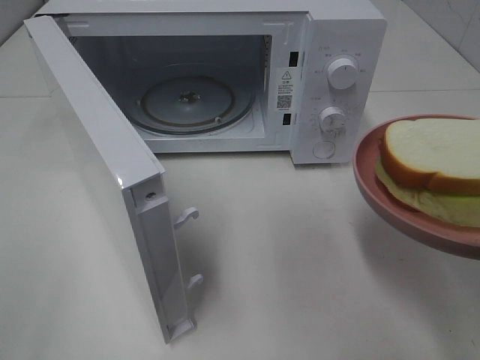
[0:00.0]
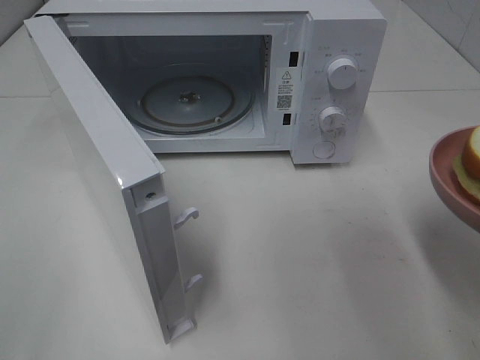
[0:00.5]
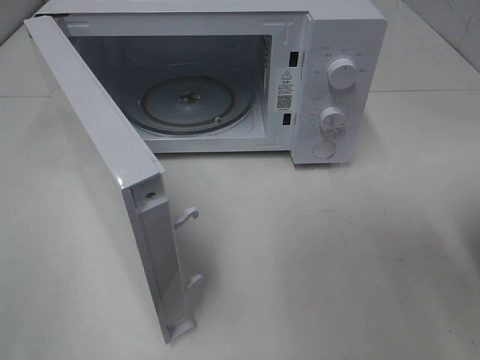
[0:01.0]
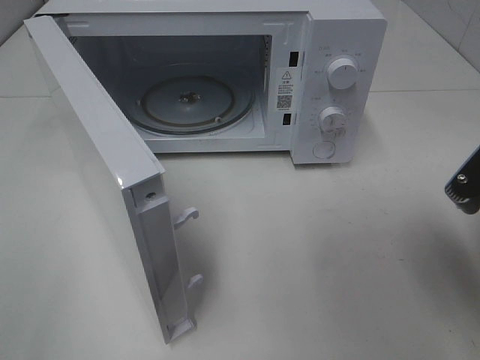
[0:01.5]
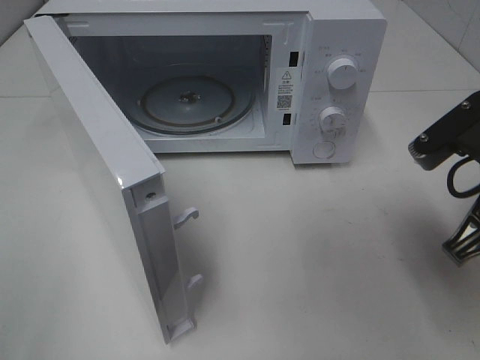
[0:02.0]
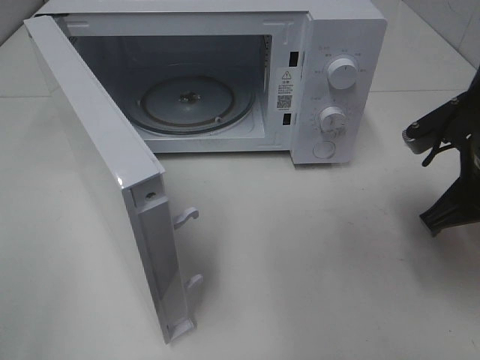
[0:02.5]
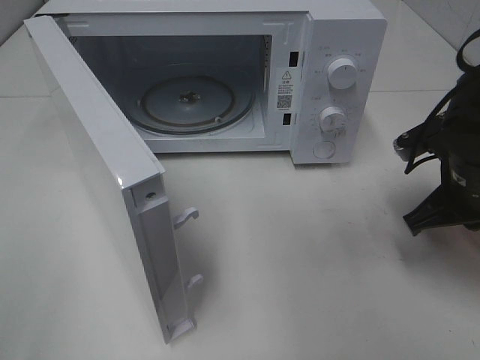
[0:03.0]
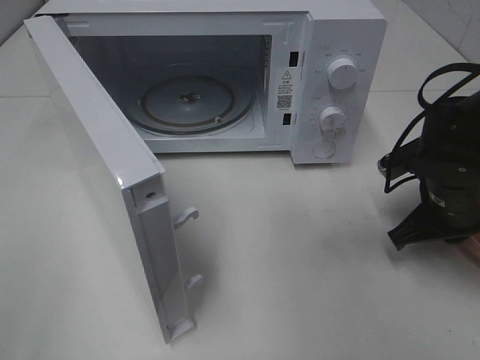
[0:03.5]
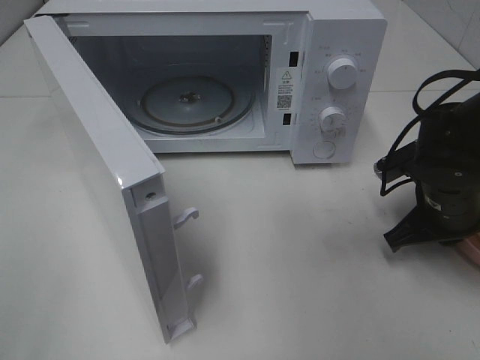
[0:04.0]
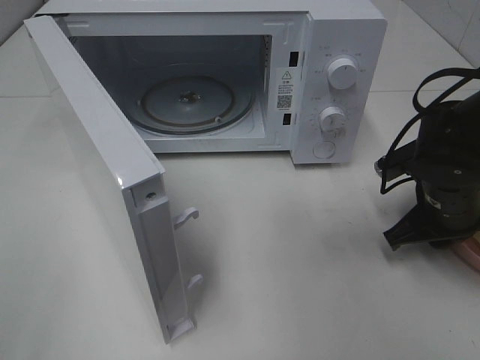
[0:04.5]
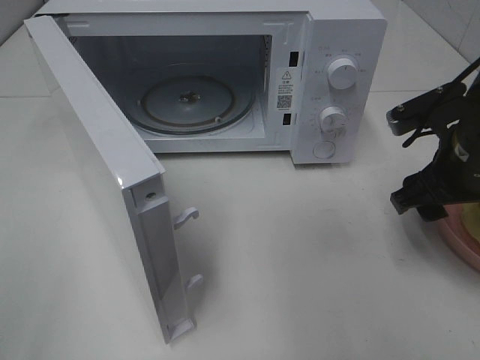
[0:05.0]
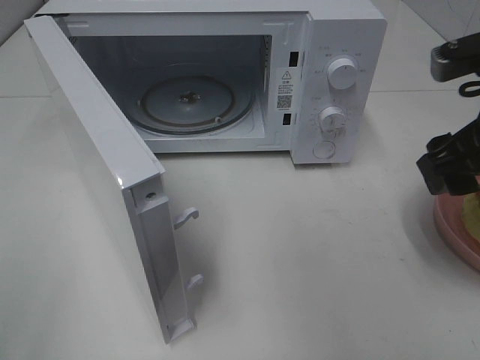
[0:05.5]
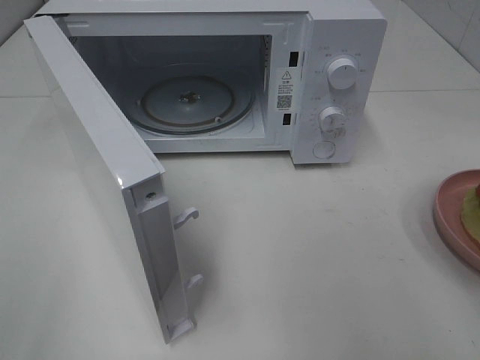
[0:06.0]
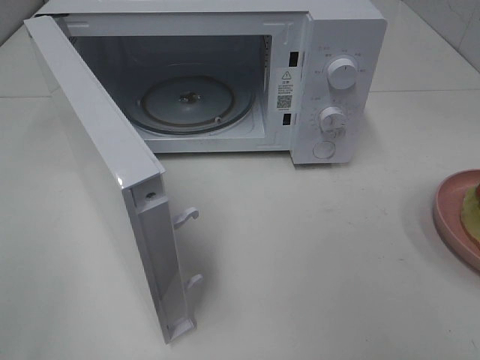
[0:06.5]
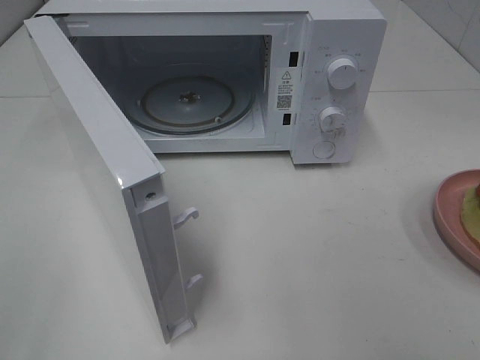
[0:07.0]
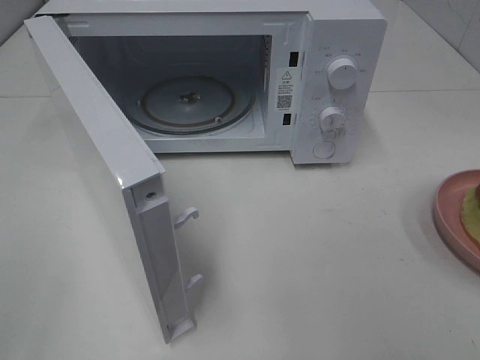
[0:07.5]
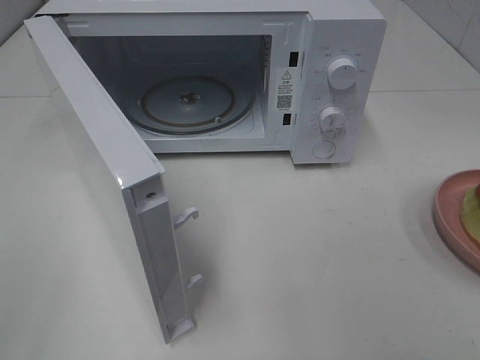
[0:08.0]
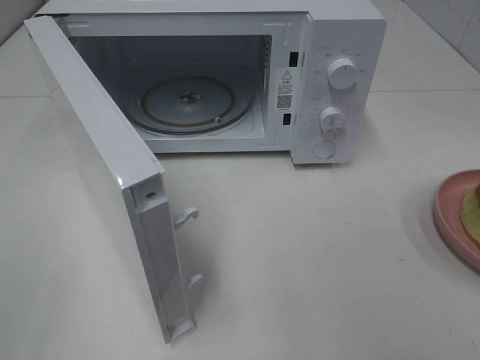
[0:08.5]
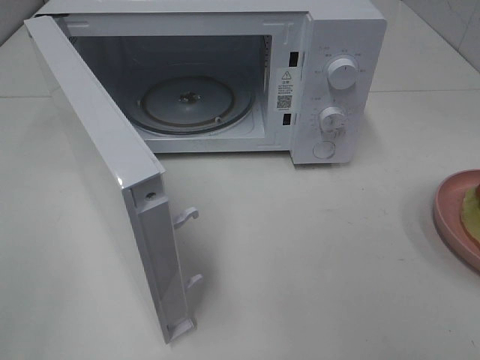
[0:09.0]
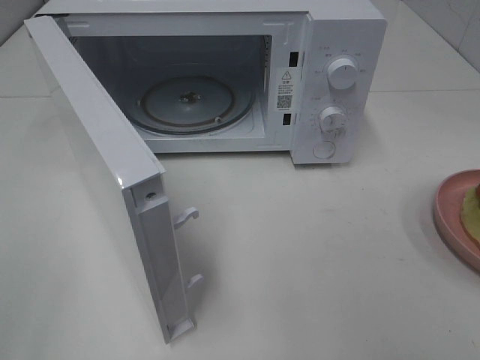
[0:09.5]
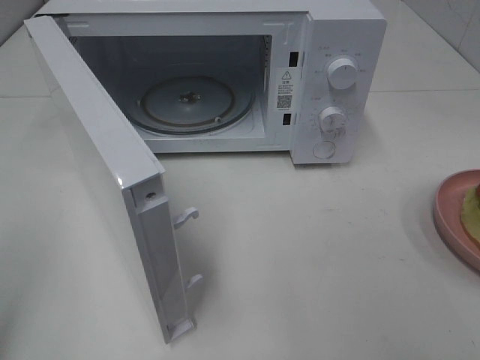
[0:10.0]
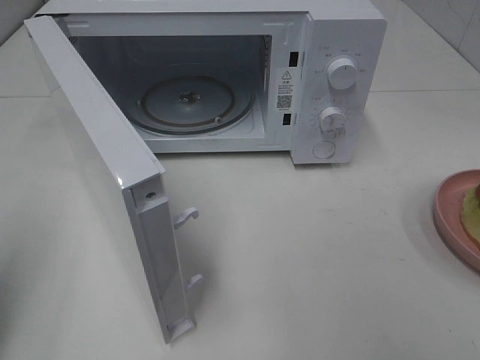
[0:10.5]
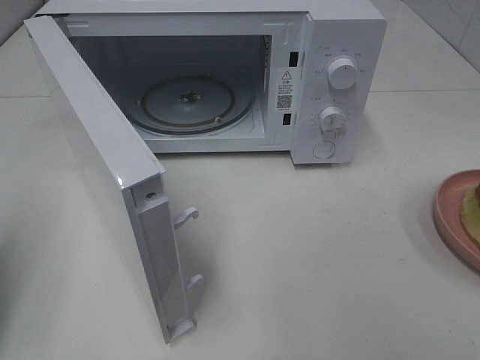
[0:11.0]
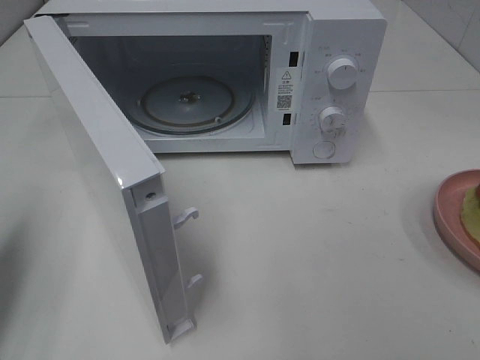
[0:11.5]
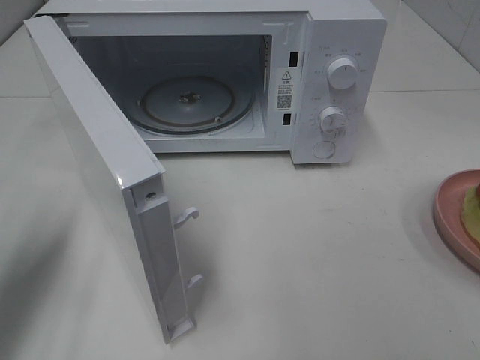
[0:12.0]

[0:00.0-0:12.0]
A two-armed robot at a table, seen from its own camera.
Task of the whole recording: Heat Sandwich.
Step, 0:00.0 to 0:05.0: Right hand: place the plate on the table.
0:00.0 to 0:02.0: The right gripper is displaced forward by roughly 10 cm.
0:02.0 to 0:04.0: The right gripper shifts about 15 cm downward and forward.
0:04.0 to 0:06.0: The right gripper is displaced upward and backward by about 25 cm, and opens up.
0:10.0 to 0:12.0: The left gripper heads forward and downward, covering approximately 20 cm.

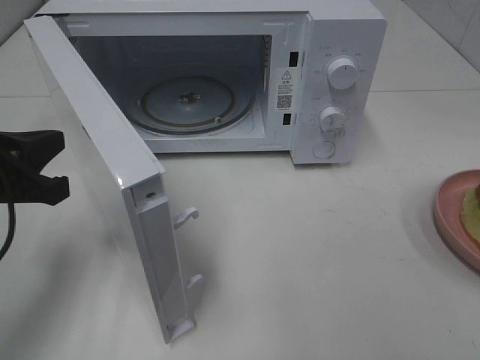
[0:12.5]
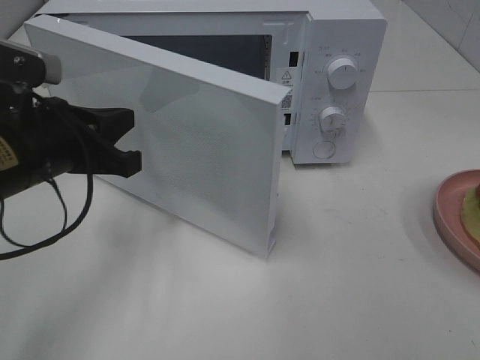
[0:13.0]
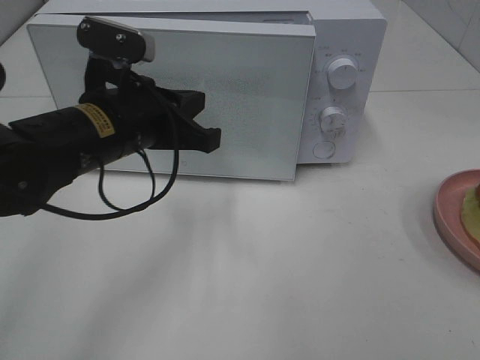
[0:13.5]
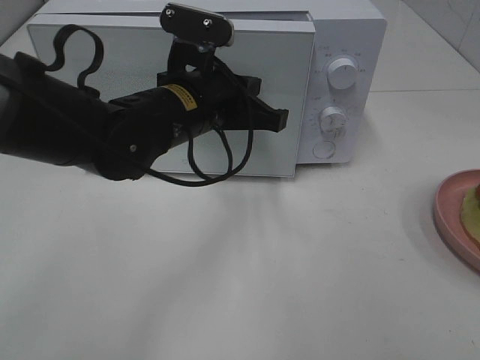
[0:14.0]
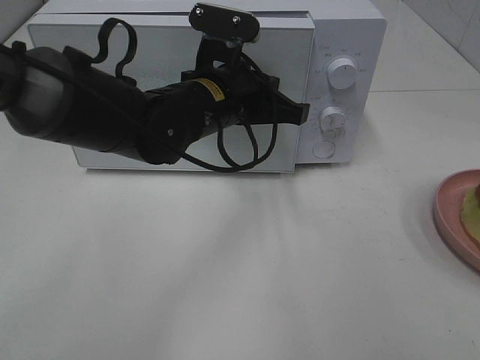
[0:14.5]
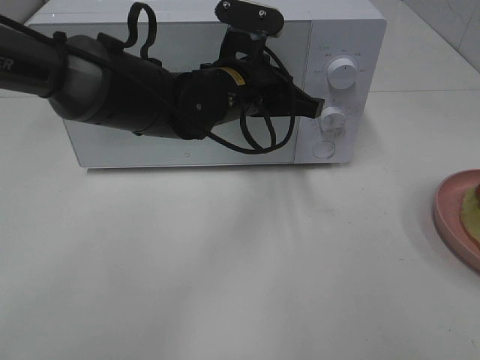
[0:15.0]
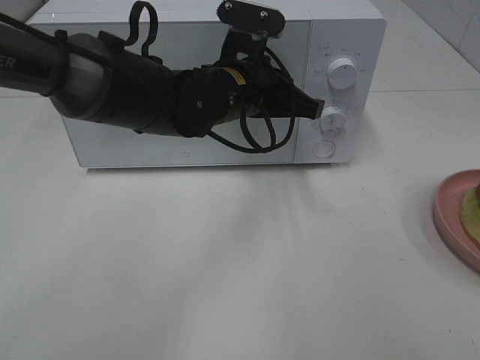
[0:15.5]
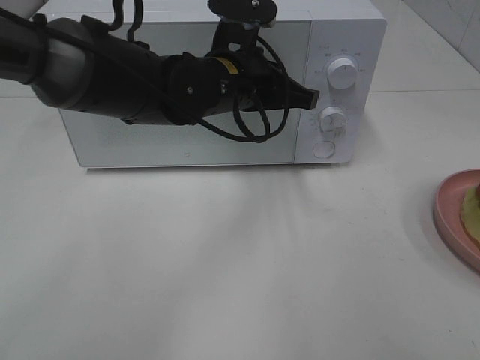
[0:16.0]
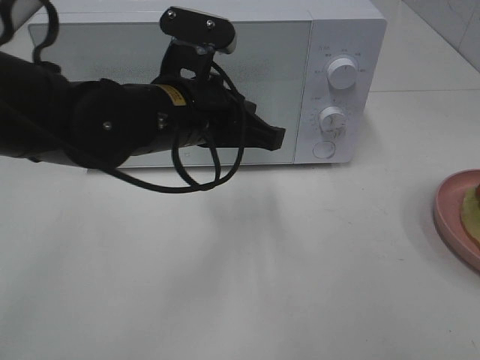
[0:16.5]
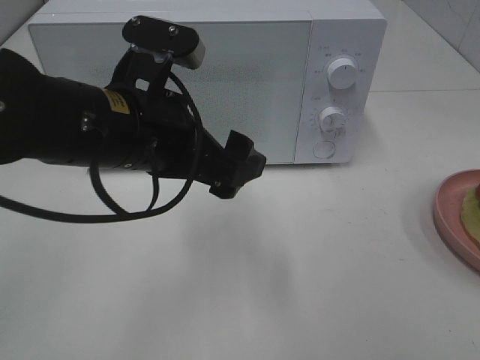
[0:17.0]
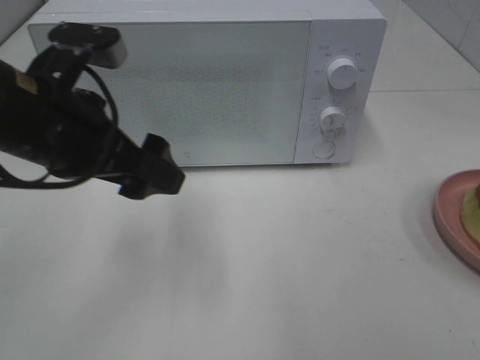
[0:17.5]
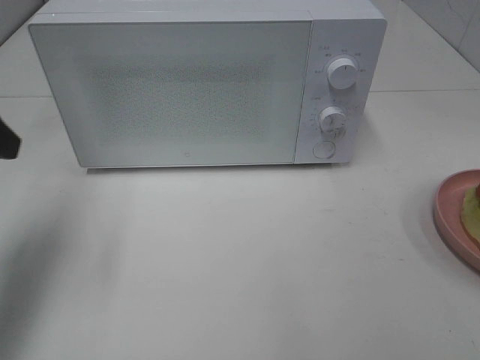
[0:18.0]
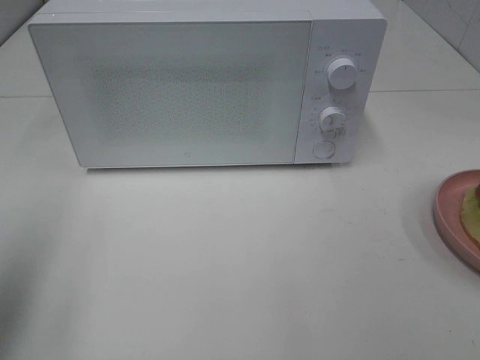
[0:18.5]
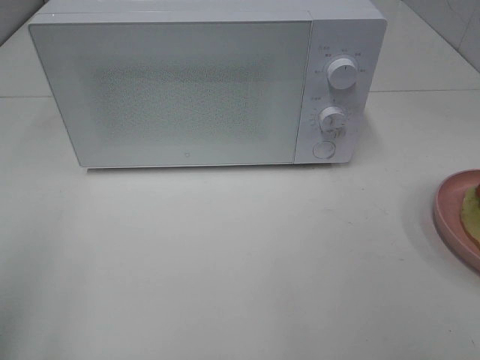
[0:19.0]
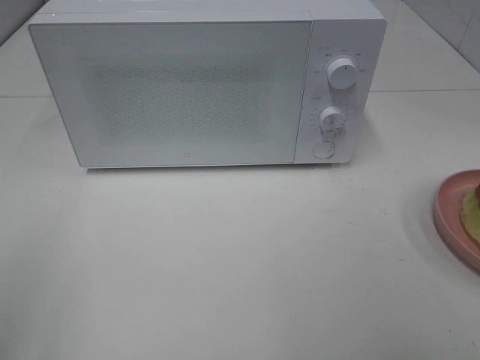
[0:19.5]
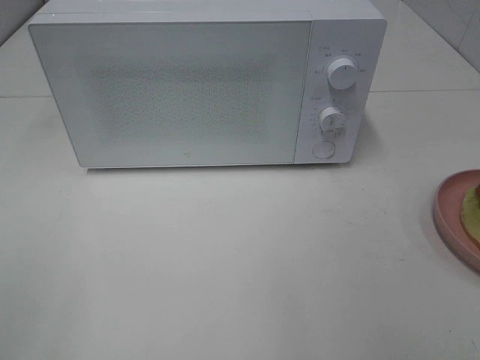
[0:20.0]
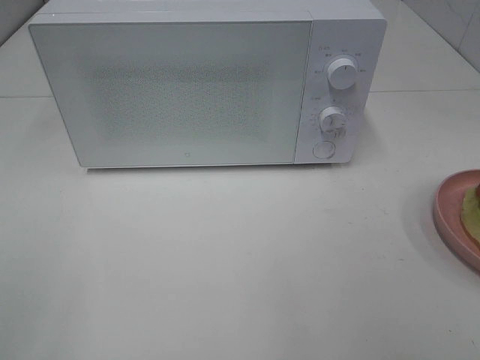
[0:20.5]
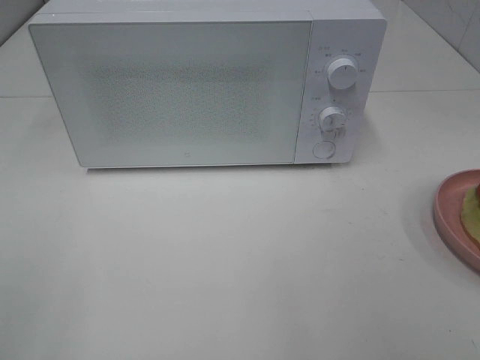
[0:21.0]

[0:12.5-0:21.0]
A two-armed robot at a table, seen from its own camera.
Task of the whole recording: Heat Sandwich.
Step, 0:12.5 to 0:16.0: Left hand: close the microwave door.
0:12.5 to 0:14.5: The left gripper travels to the right and forward by about 25 cm.
0:14.5 to 0:16.5: The left gripper moves backward, approximately 5 cm.
0:16.5 to 0:19.0: The left gripper heads to the left and backward, covering some 35 cm, and opens up.

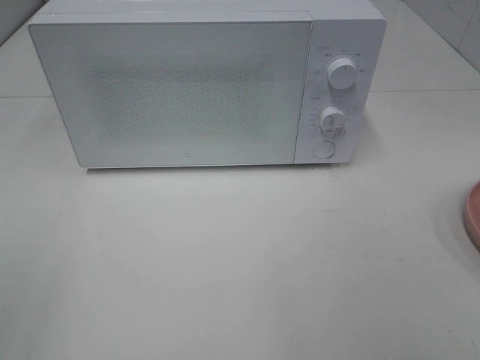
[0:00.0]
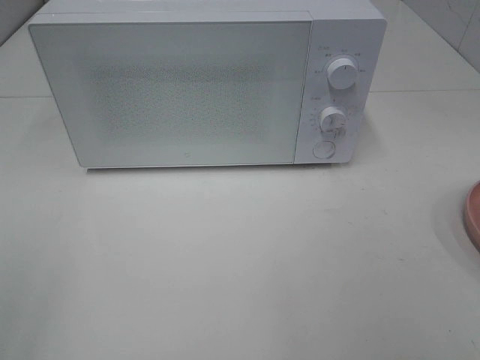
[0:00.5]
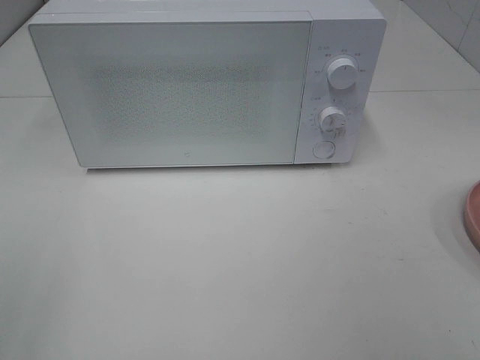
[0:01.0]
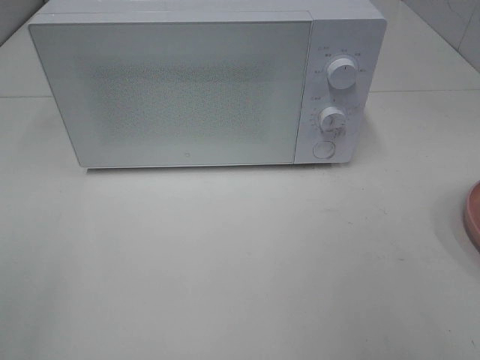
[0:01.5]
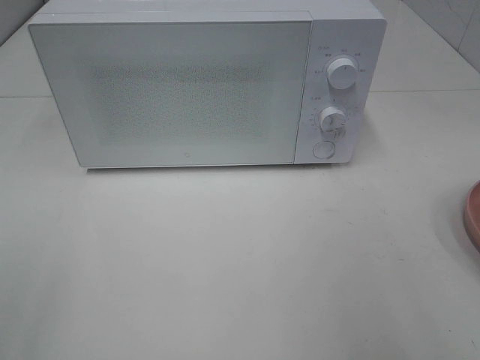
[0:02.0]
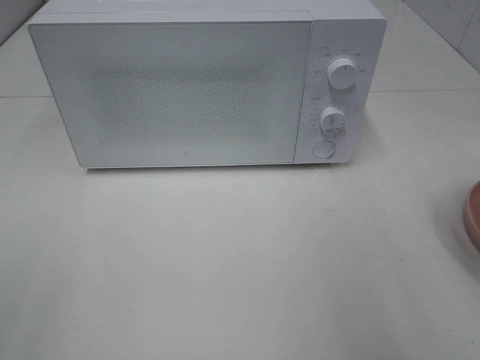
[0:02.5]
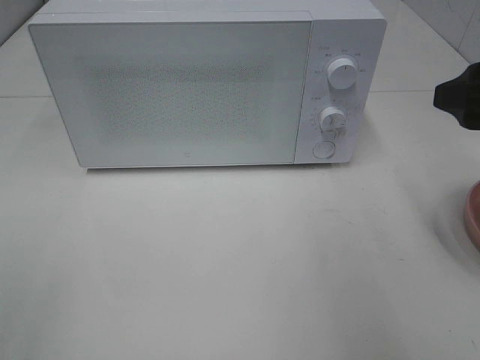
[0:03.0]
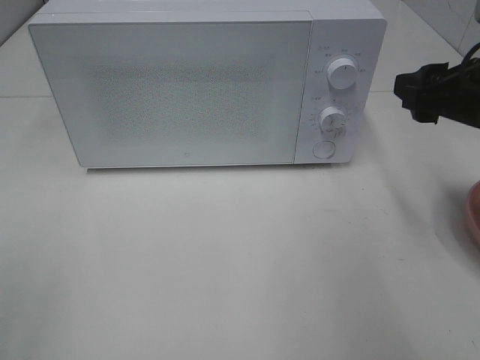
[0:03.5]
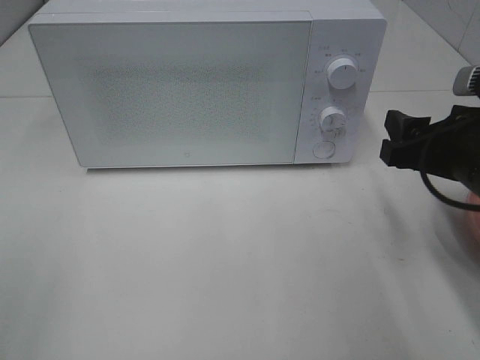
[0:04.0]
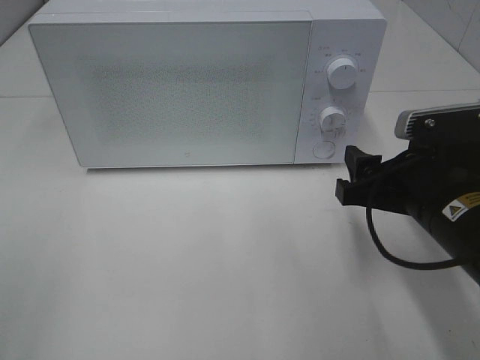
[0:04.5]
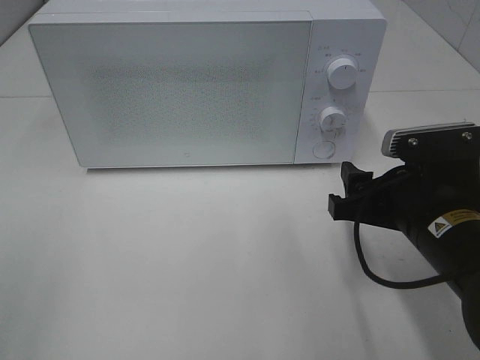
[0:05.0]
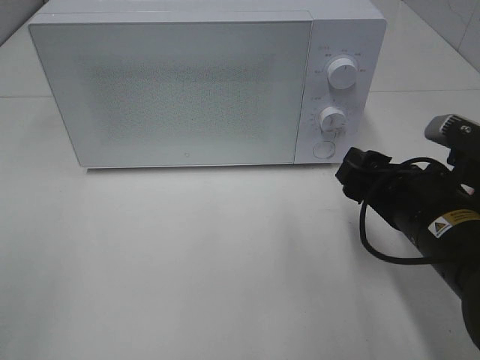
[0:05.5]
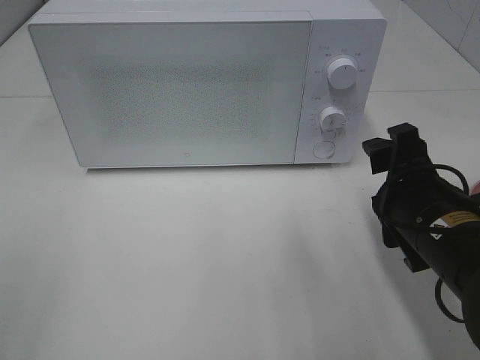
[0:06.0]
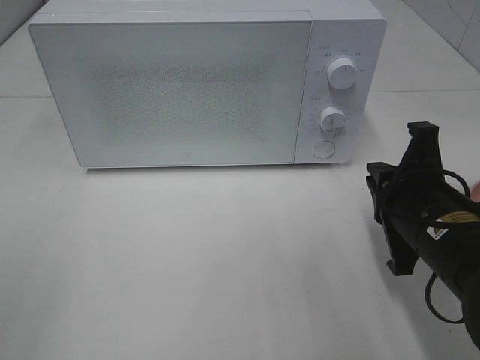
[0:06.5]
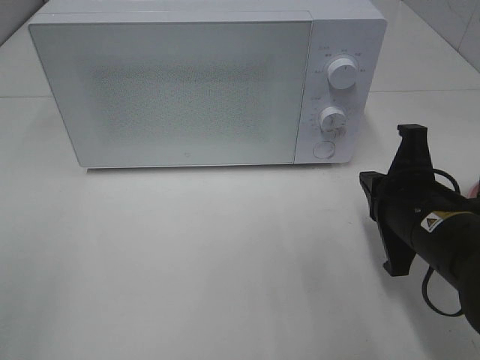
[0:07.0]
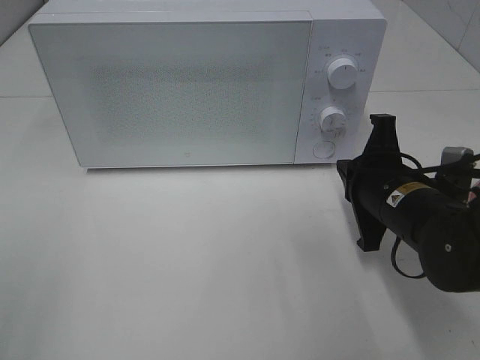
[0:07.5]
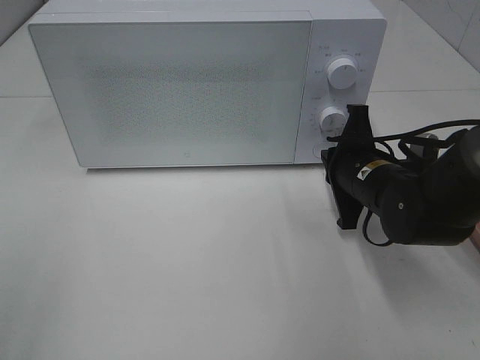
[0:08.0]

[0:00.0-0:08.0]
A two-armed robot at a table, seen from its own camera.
Task of the whole recording: Heat Sandwich.
0:02.0 to 0:04.0: The right gripper travels downward and forward by approximately 15 cm.
0:04.0 to 0:06.0: The right gripper shifts by roughly 5 cm.
0:06.0 to 0:08.0: The right gripper shifts some 10 cm forward, and closes up.
